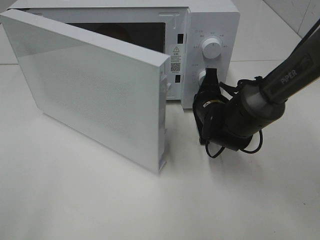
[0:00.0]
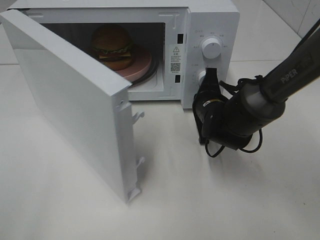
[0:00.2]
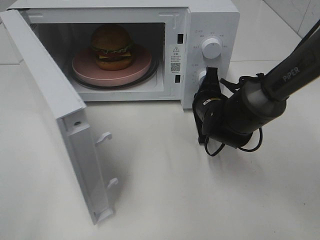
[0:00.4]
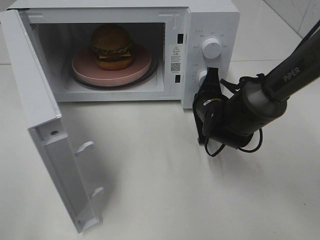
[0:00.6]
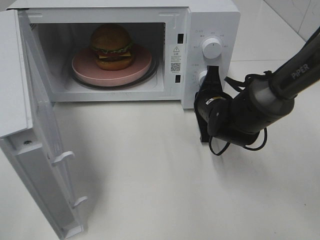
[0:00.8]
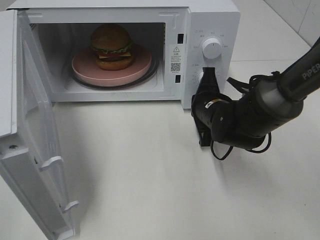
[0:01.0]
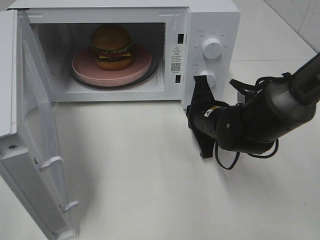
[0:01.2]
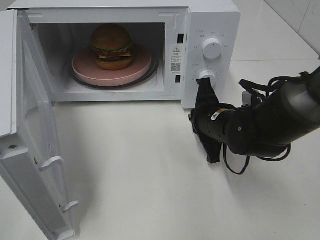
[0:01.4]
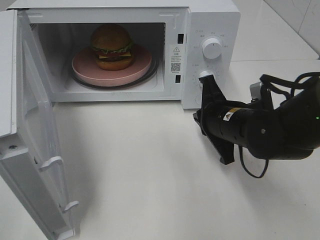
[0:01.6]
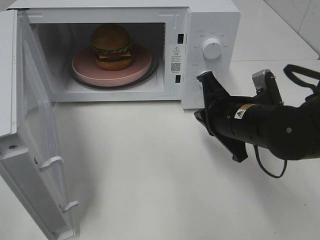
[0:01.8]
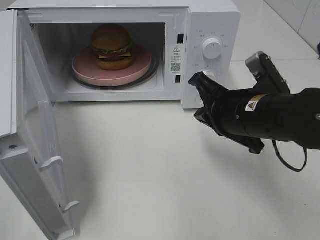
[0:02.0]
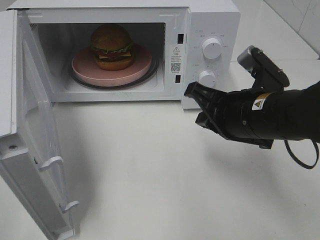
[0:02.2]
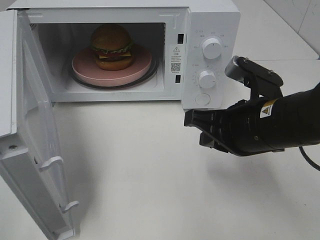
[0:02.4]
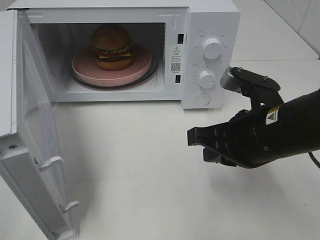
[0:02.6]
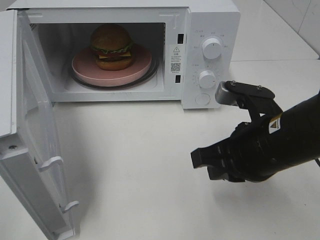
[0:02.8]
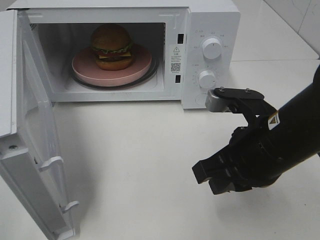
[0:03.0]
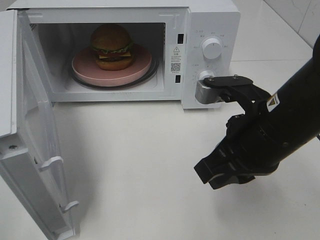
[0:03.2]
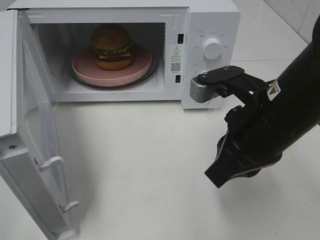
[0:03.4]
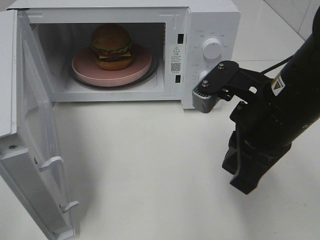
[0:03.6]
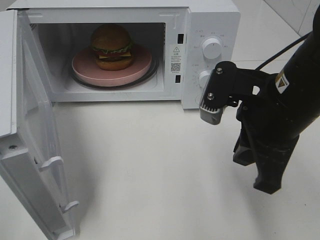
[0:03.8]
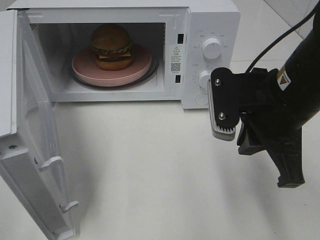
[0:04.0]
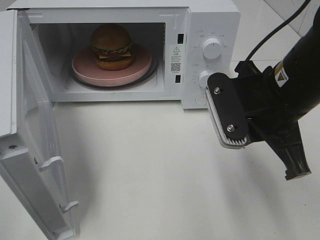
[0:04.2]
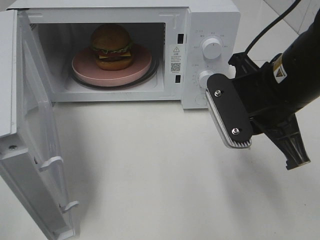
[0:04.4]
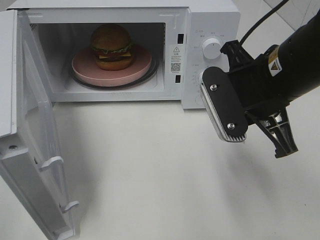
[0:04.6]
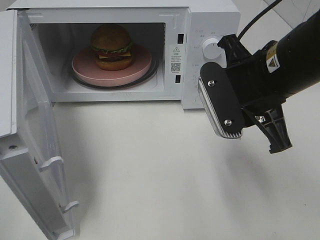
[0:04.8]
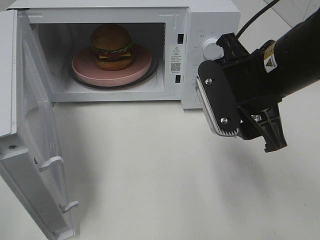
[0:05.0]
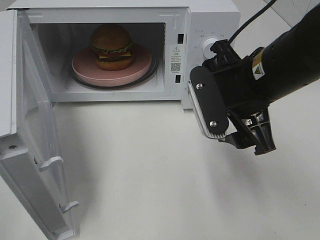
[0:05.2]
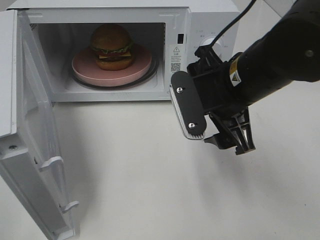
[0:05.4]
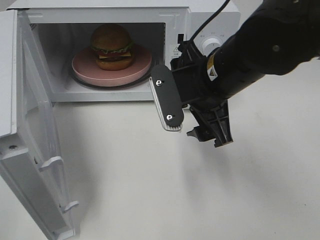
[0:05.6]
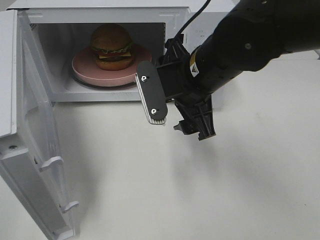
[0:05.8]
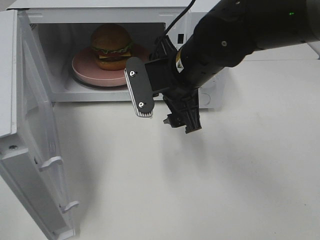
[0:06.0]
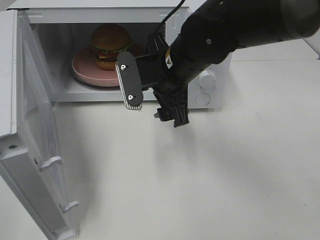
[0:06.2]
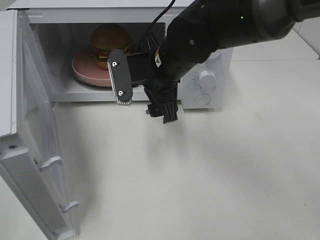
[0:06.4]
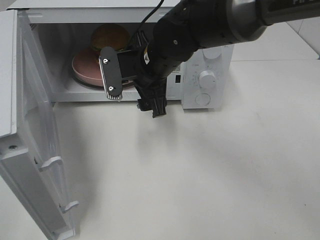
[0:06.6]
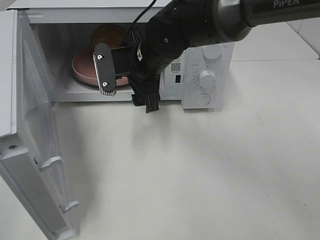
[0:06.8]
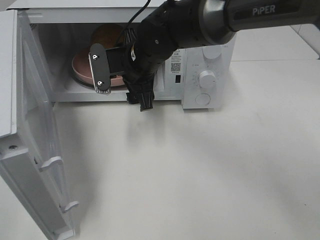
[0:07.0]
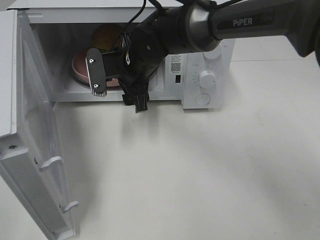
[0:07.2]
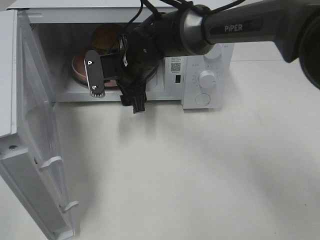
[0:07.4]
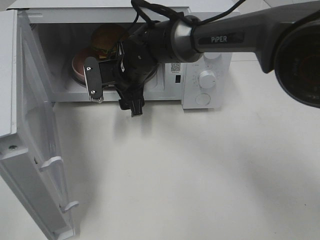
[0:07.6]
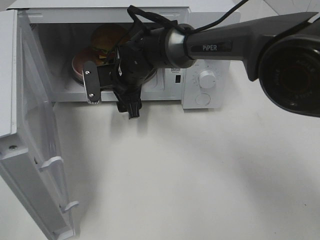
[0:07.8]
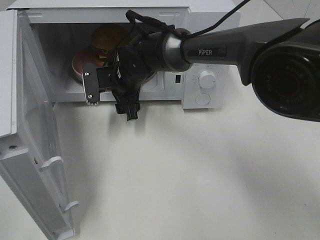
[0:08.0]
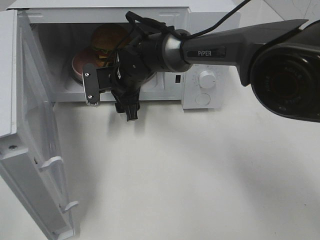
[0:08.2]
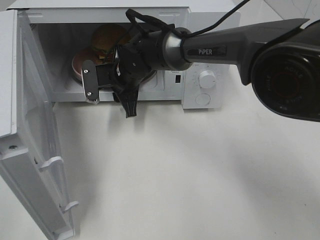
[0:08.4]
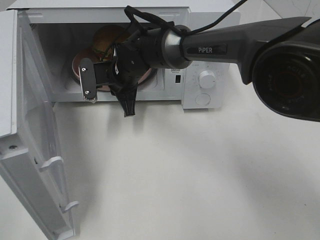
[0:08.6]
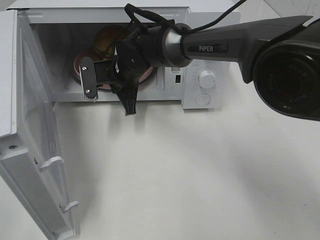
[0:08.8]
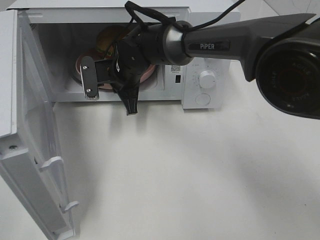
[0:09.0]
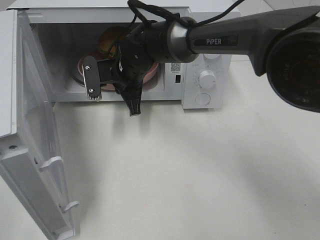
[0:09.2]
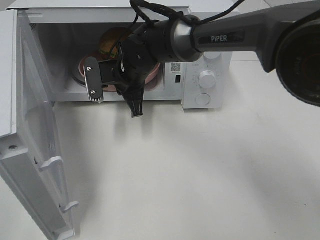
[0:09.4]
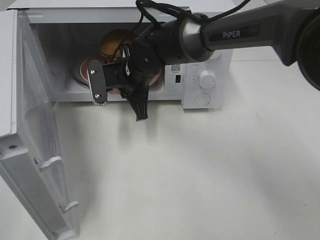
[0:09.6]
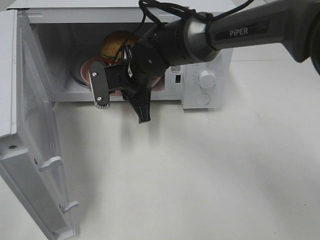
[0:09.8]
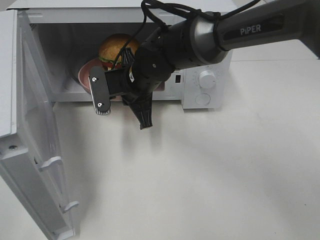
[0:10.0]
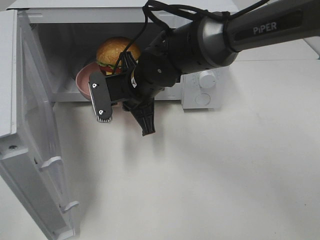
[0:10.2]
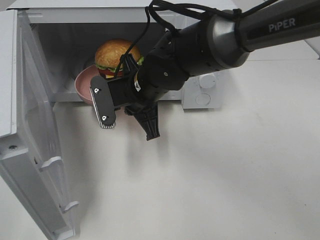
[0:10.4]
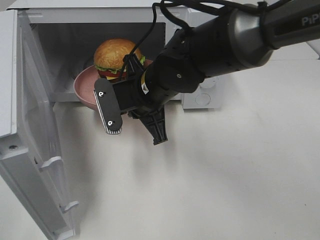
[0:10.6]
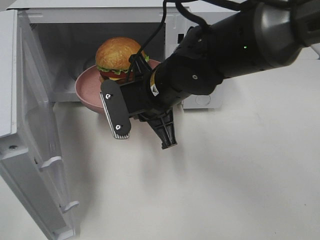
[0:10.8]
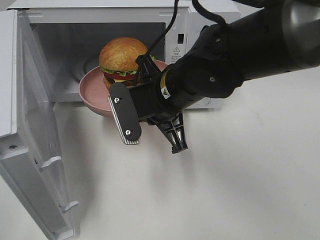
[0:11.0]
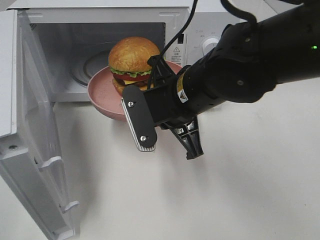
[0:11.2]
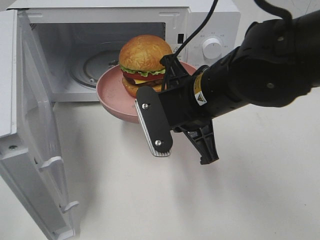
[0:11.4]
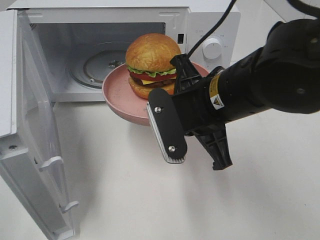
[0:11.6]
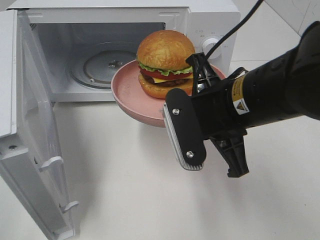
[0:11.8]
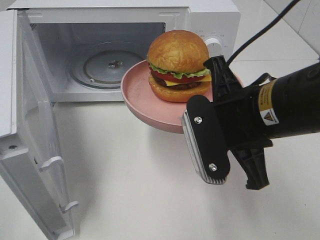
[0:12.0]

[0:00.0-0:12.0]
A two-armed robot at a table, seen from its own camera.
Task of the whole recording: Heat the burger.
Step, 0:01.2 to 0:08.8: Right hand: grab the plate with the hamburger.
0:00.0 to 0:01.6: The right gripper is displaced backward by some 10 cm.
0:01.6 to 0:03.0: The right gripper travels backward and upward by about 10 cm.
0:03.0 to 0:04.4: The right gripper travels upward by some 5 cm.
0:04.4 to 0:06.0: The right gripper goes approximately 10 cm to the left and forward, and opens up.
0:06.0 to 0:07.6: The right gripper shifts some 15 cm forward, to the left and downward.
0:07.6 to 0:09.0: The right gripper closes its fingers.
0:09.0 to 0:10.4: The right gripper goes some 10 cm backward.
0:10.4 to 0:12.0: The right gripper moves backward, to the right and upward, approximately 20 cm.

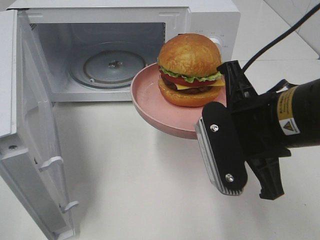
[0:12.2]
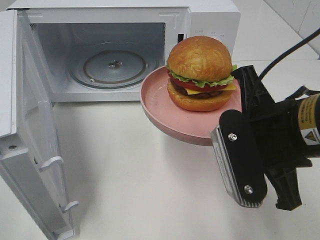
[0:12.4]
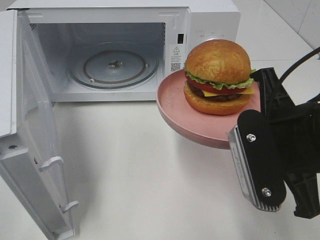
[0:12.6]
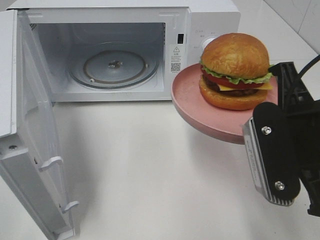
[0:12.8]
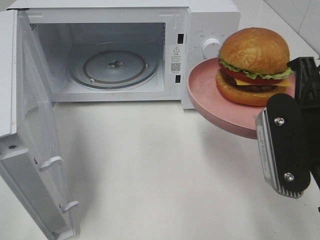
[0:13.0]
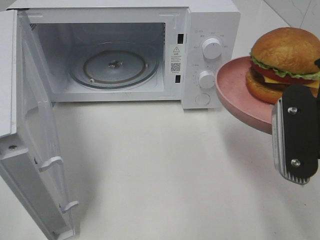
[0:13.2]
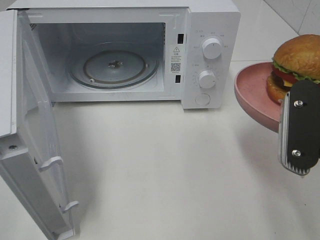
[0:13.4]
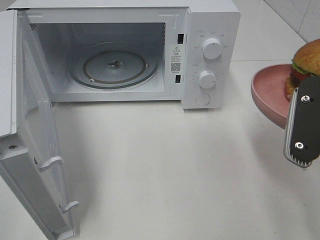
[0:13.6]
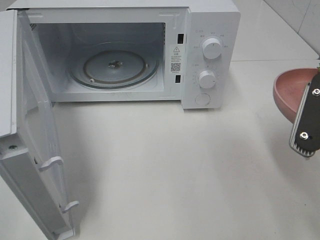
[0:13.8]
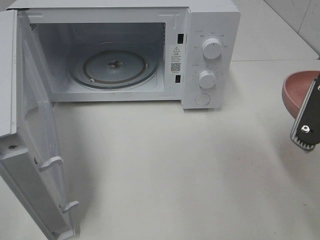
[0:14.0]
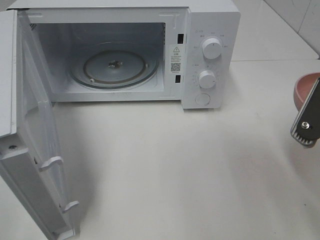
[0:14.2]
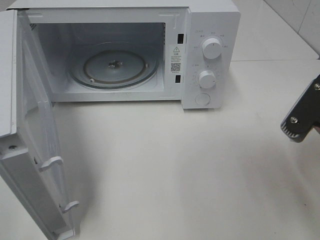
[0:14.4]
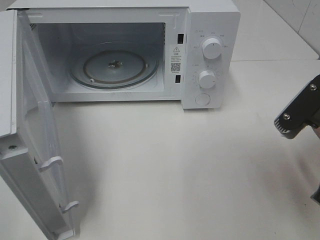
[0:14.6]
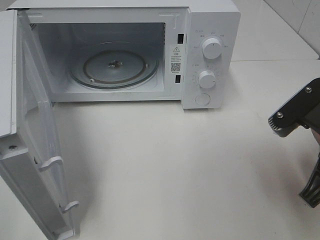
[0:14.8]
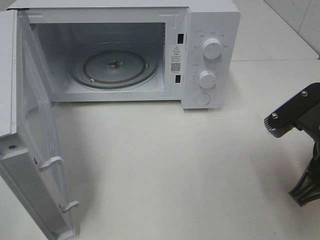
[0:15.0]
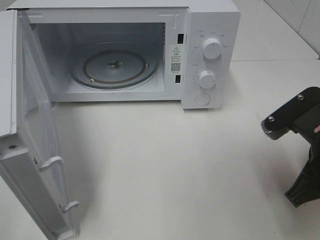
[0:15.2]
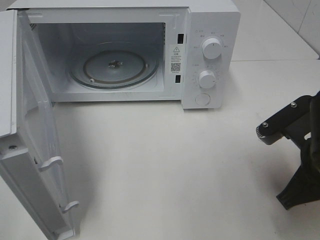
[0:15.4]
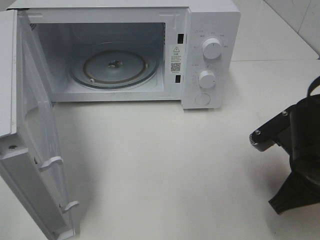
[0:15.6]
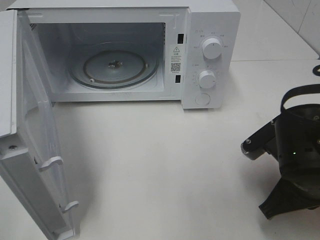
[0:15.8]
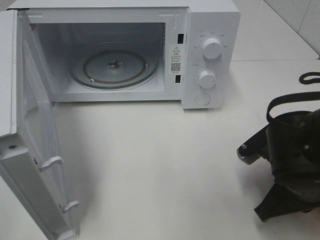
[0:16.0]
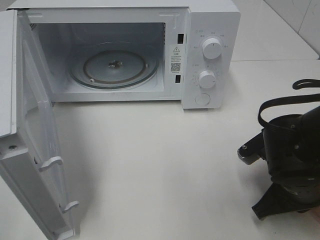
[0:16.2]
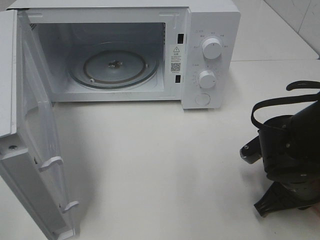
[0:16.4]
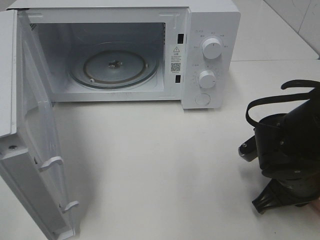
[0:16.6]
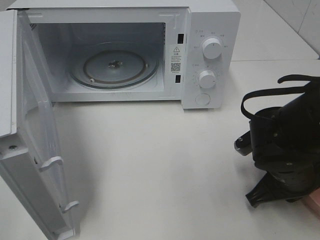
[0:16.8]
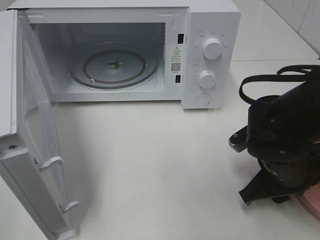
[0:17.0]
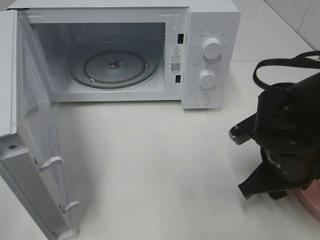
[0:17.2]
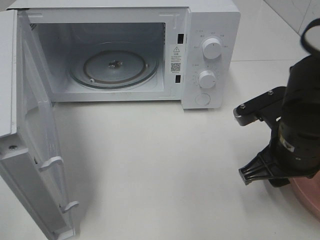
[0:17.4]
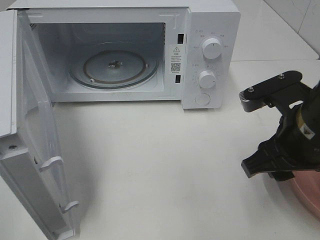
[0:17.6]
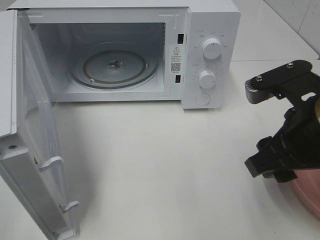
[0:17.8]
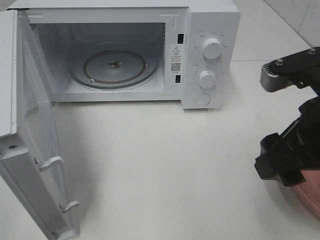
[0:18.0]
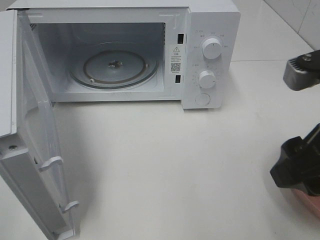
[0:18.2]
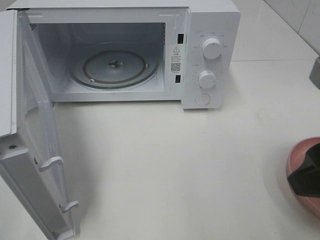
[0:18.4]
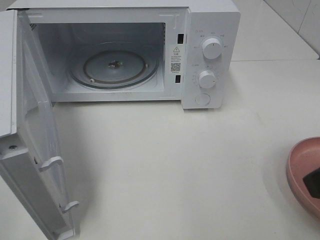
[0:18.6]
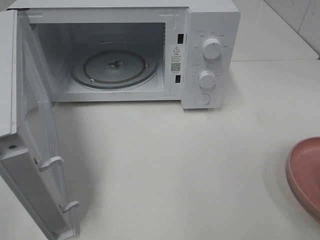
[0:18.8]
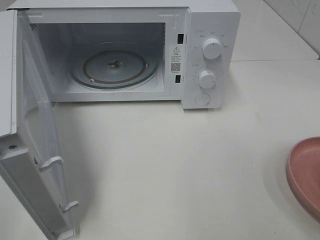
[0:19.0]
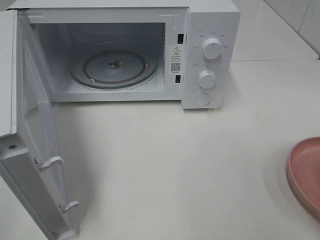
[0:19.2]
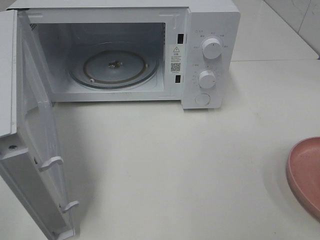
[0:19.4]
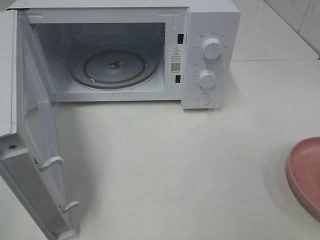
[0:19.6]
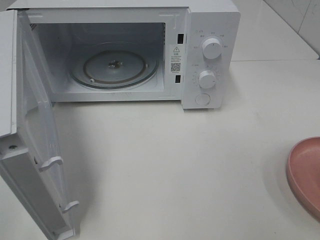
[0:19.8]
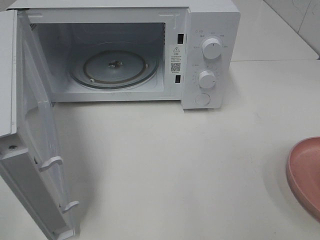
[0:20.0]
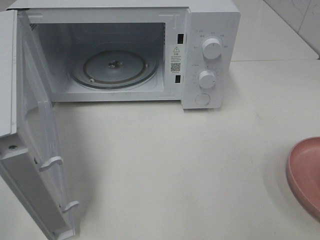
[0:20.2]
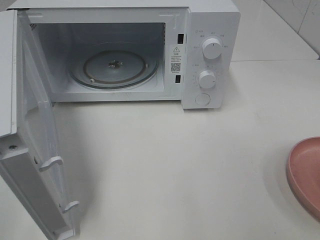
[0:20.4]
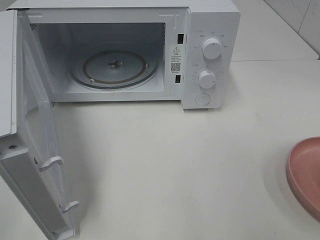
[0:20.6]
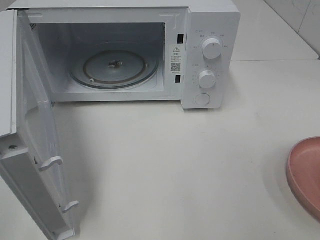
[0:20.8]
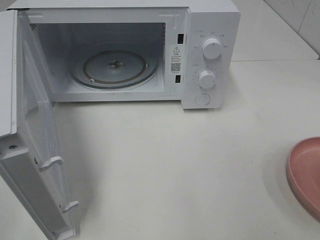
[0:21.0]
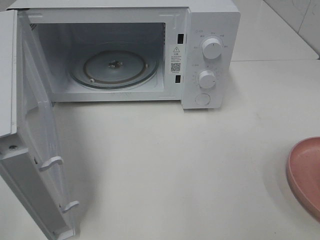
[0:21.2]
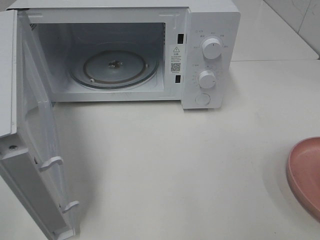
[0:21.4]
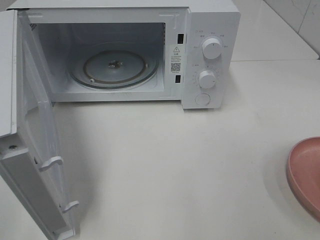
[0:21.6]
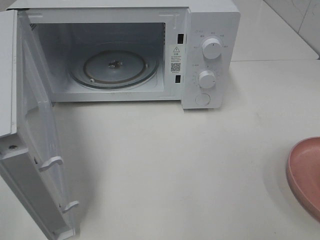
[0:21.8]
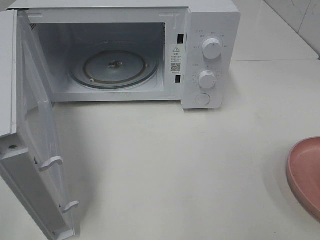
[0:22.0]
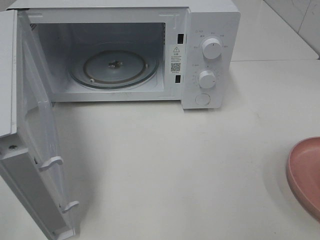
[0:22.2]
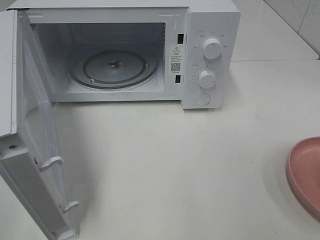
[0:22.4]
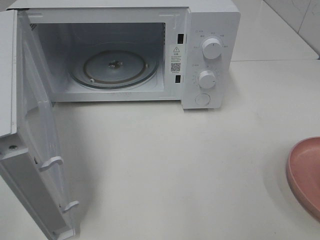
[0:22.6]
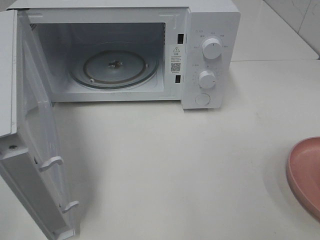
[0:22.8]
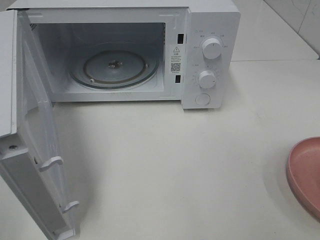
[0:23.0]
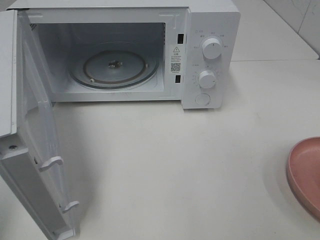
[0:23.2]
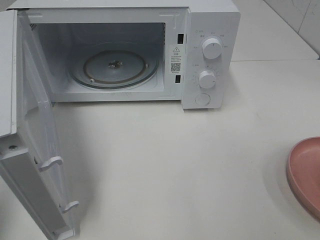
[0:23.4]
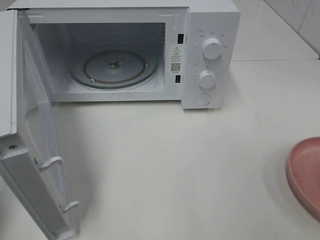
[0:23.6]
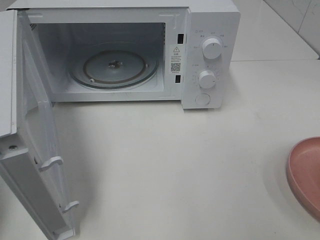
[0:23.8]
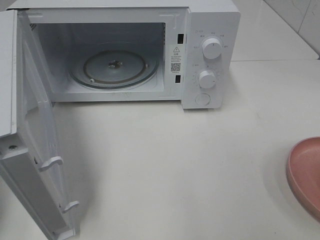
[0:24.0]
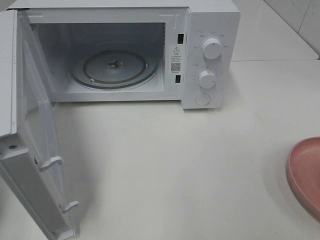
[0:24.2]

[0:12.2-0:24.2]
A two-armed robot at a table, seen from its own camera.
Task of the whole recording: Heat the burger.
Step, 0:12.2 to 0:17.0: Right hand: place the plate on the table.
0:12.2 to 0:13.8: The right gripper goes about 10 cm to the right.
0:13.8 to 0:15.2: The right gripper moves downward, approximately 5 cm.
0:15.2 to 0:16.6: The right gripper shifts some 10 cm downward.
0:16.6 to 0:18.2: The right gripper heads upward, covering some 20 cm, and opens up.
0:18.2 to 0:19.8: The right gripper is displaced backward and to the right by about 15 cm.
0:21.2 to 0:22.6: Both grippers stay about where they are.
